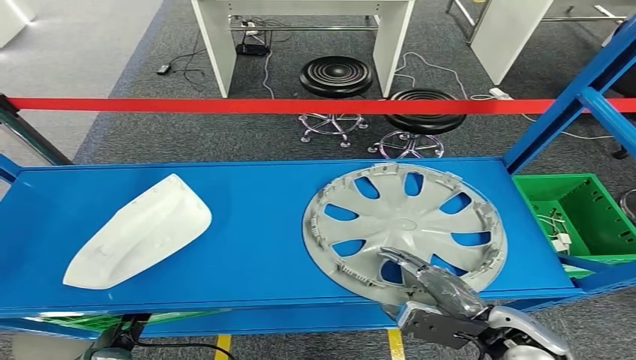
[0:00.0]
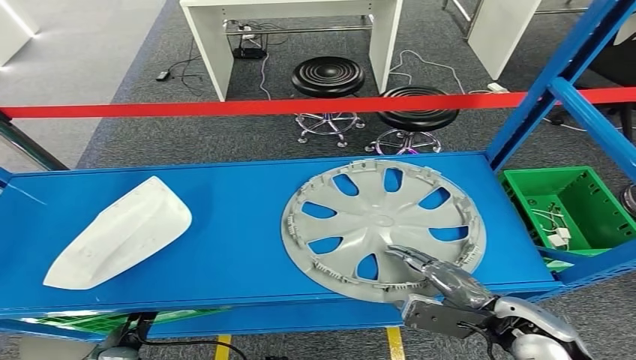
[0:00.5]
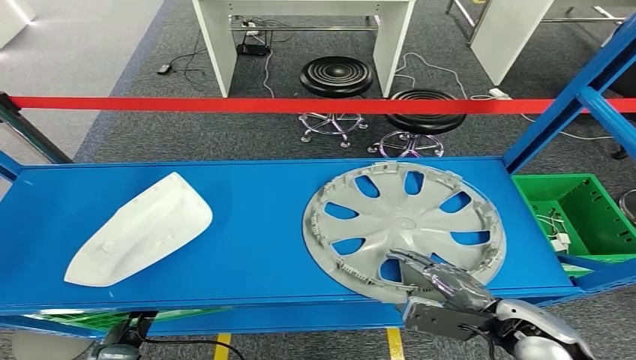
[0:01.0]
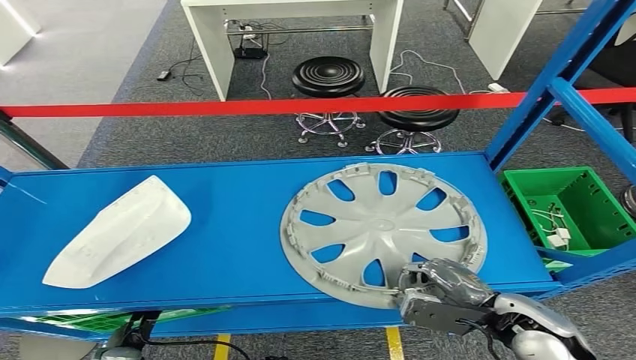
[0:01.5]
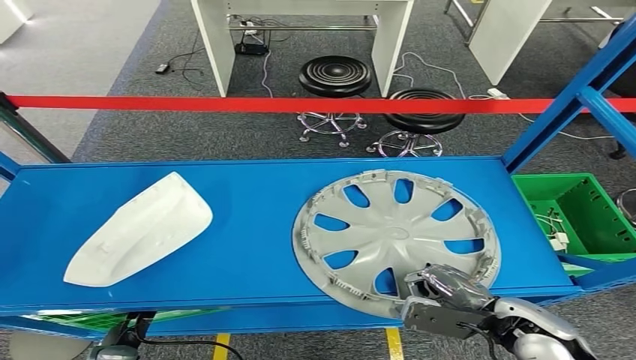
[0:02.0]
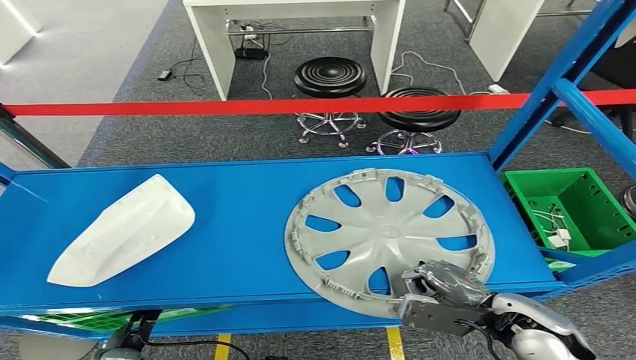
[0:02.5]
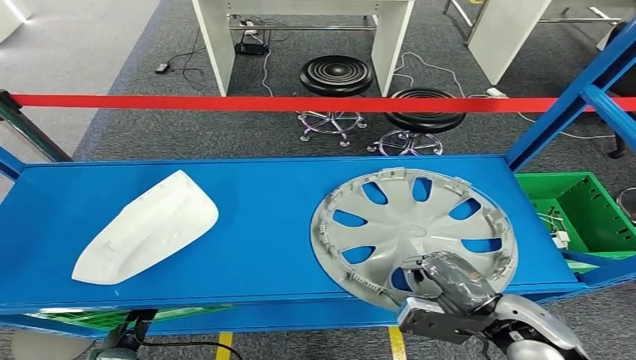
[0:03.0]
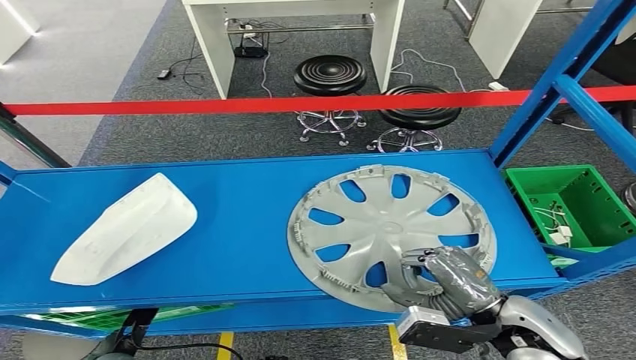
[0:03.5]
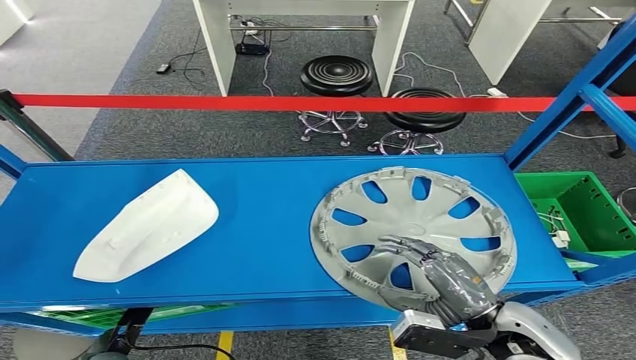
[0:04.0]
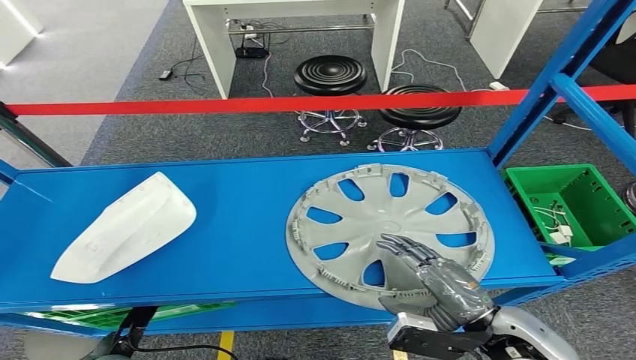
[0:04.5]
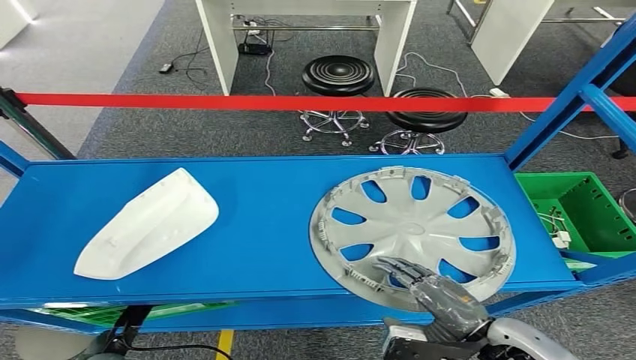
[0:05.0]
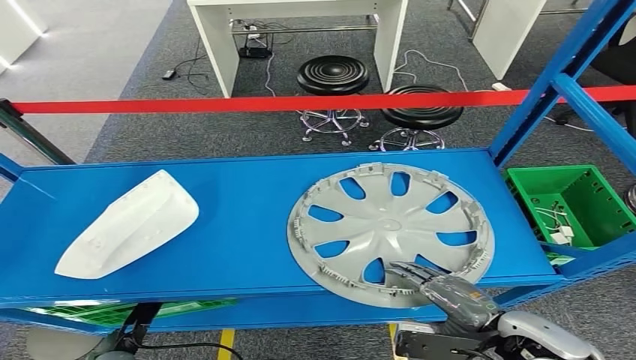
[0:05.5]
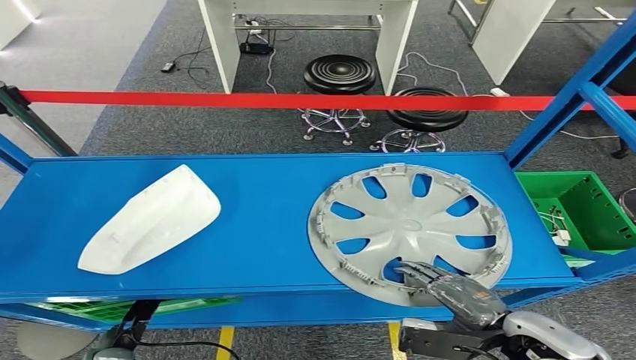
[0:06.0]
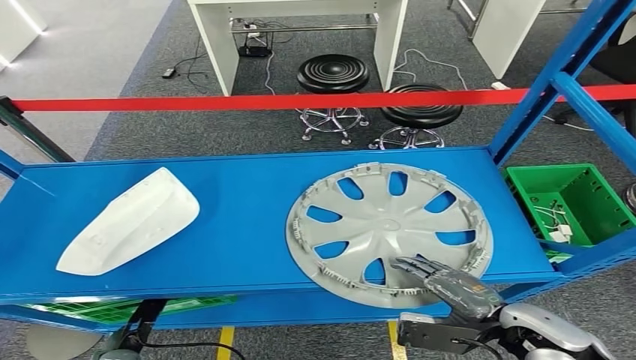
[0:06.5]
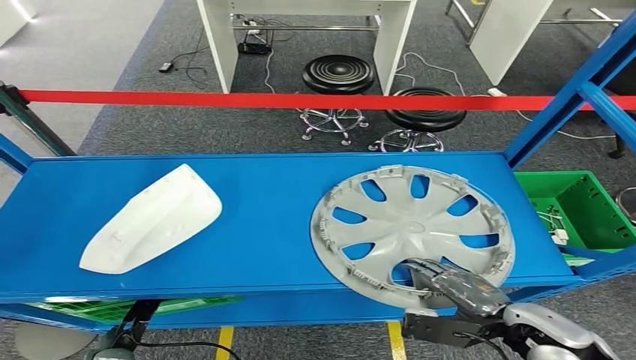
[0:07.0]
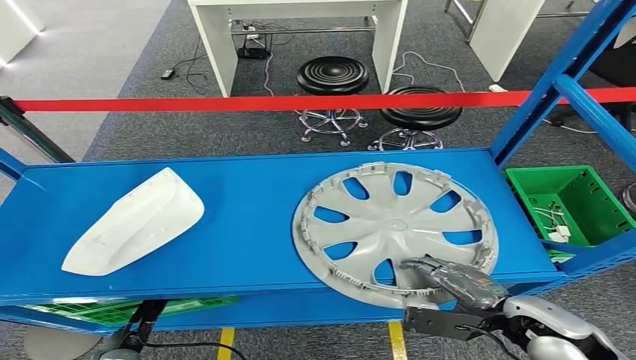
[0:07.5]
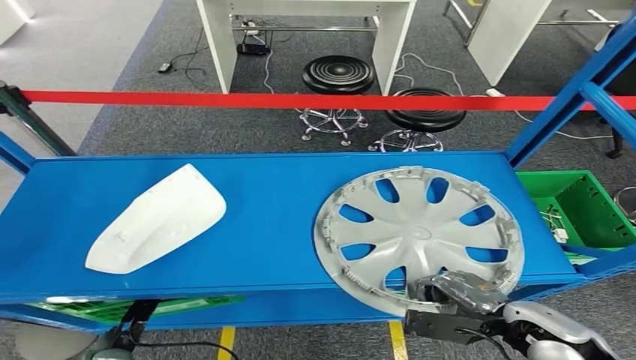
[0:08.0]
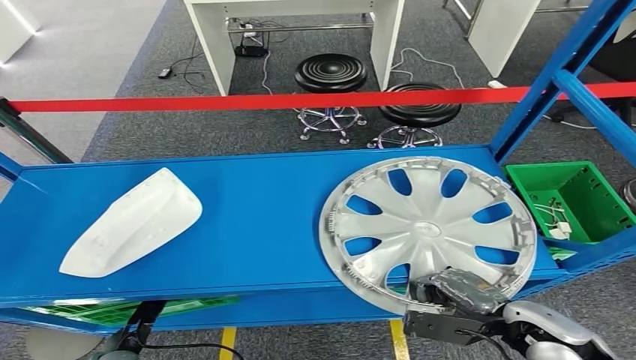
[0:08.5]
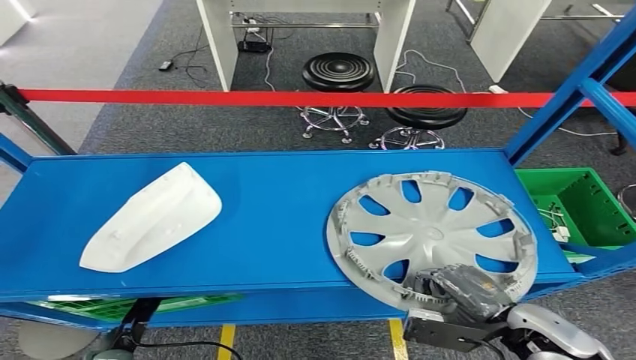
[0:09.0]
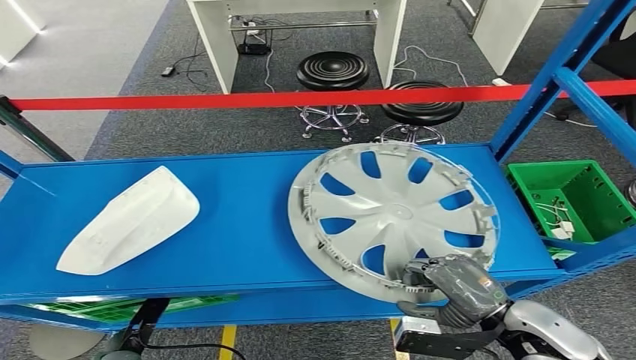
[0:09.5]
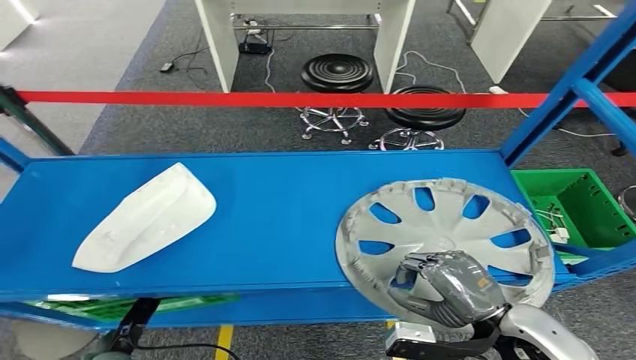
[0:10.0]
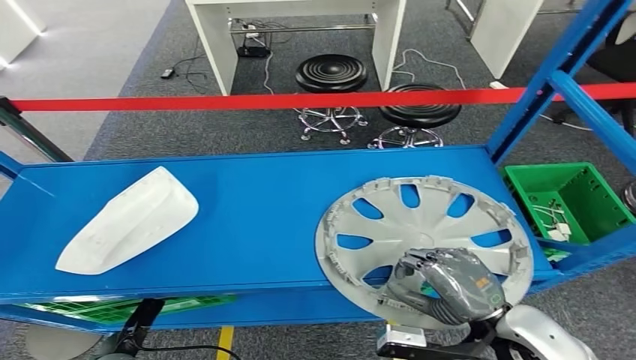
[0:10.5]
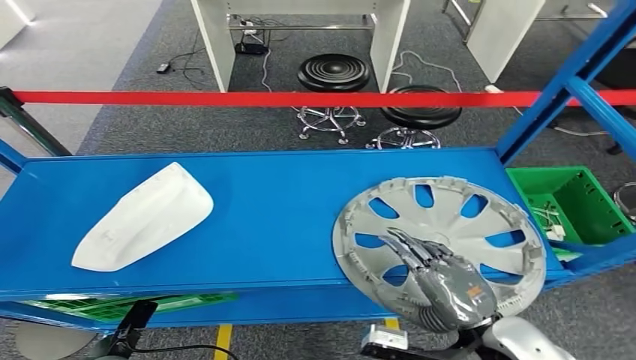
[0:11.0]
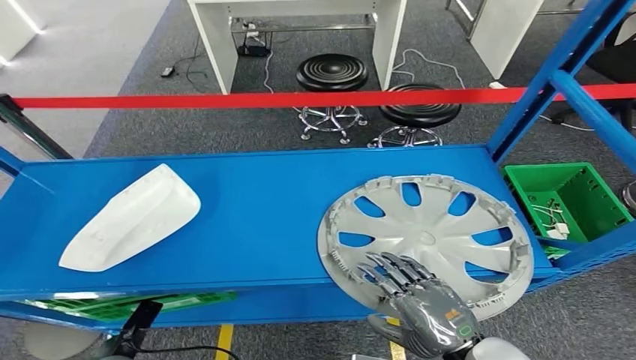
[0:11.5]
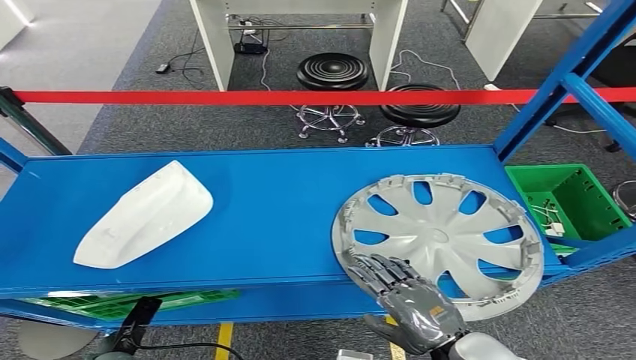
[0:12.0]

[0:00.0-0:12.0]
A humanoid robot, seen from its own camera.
0:00.0 to 0:02.0: The hands stay close to where they were, moving slightly.
0:02.0 to 0:04.0: The right hand moves approximately 5 cm.
0:06.0 to 0:08.0: The hands make only small movements.

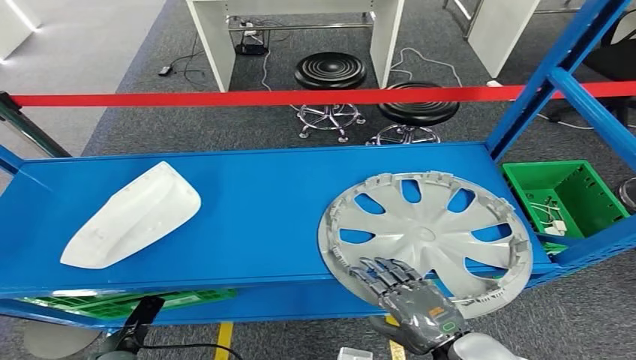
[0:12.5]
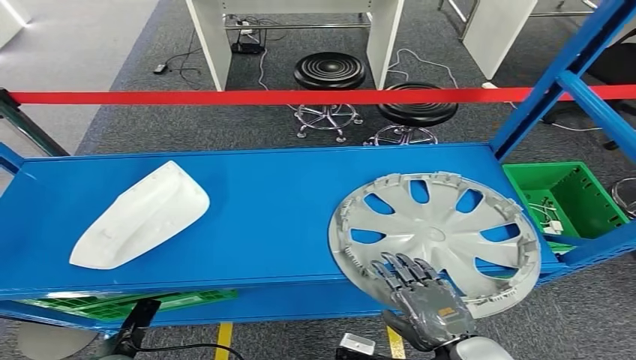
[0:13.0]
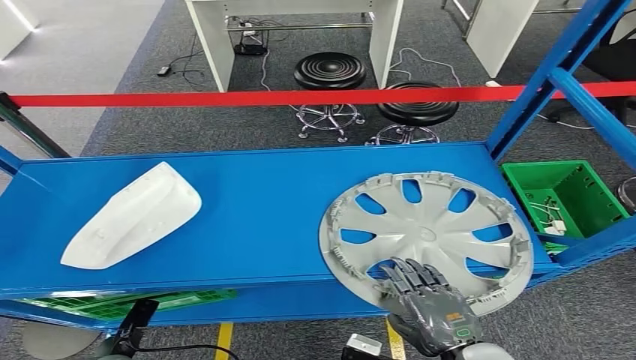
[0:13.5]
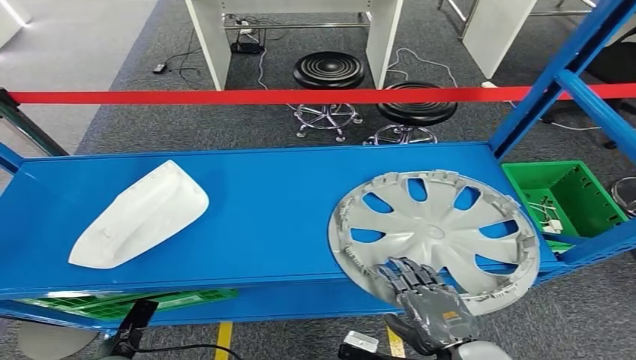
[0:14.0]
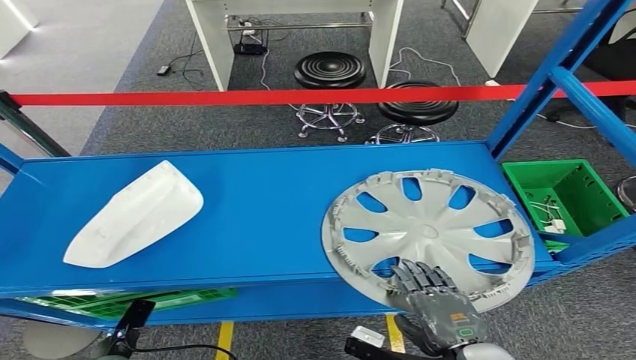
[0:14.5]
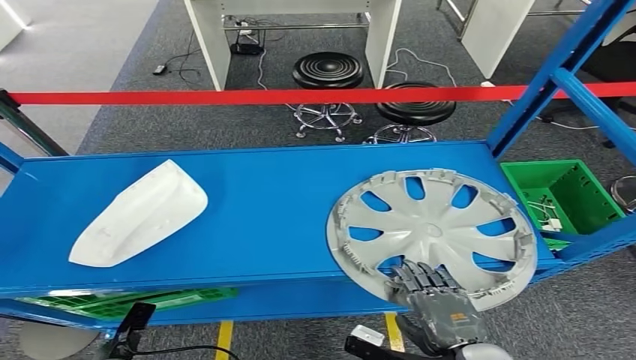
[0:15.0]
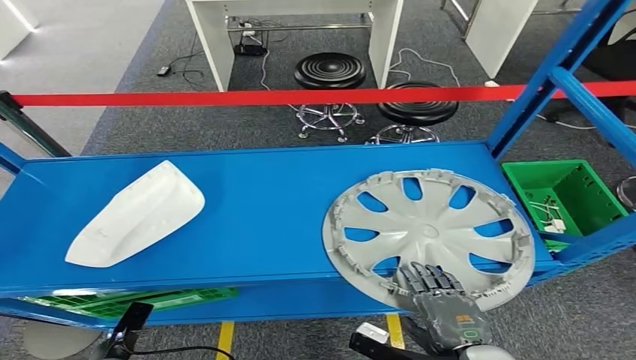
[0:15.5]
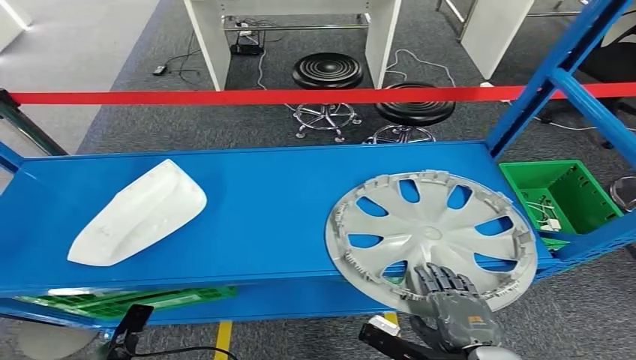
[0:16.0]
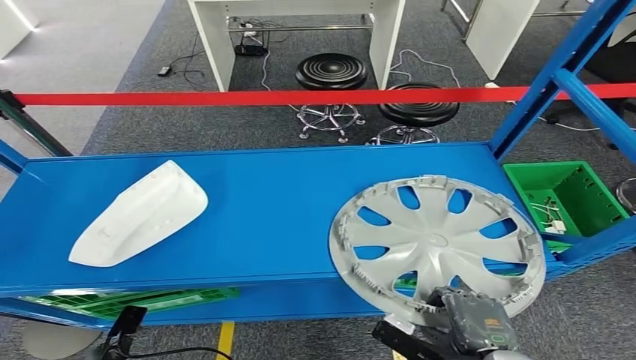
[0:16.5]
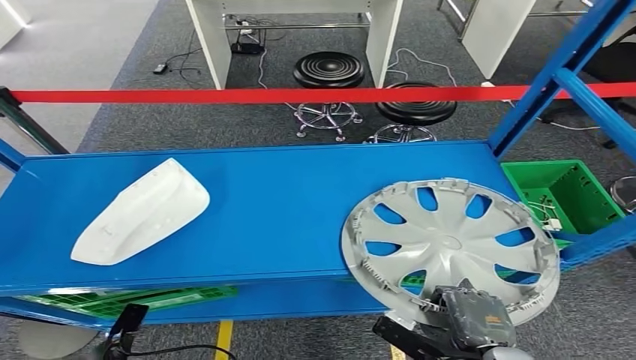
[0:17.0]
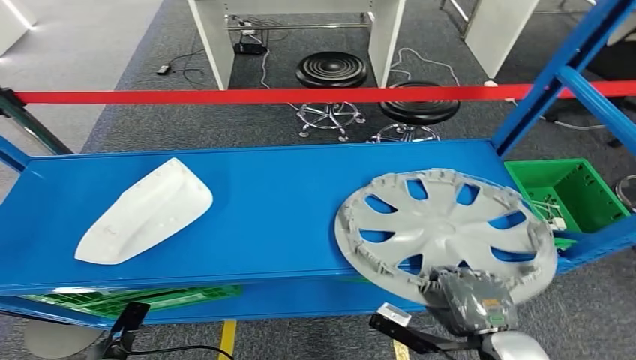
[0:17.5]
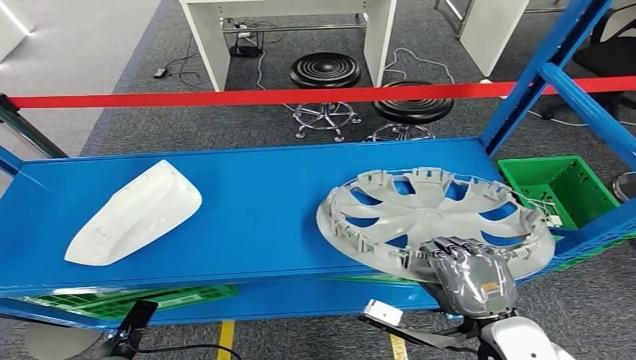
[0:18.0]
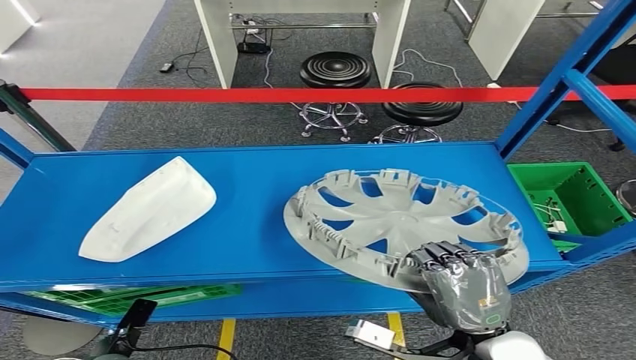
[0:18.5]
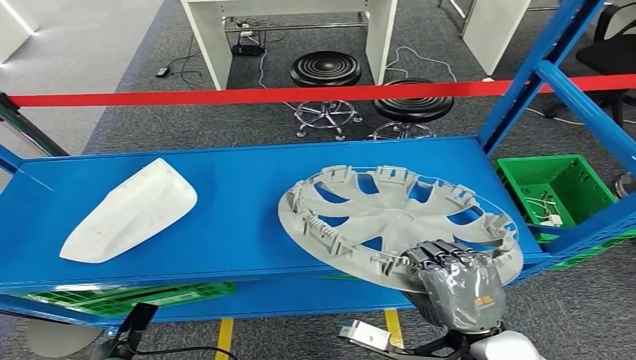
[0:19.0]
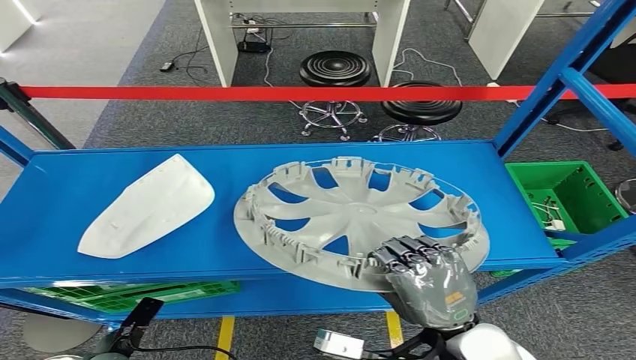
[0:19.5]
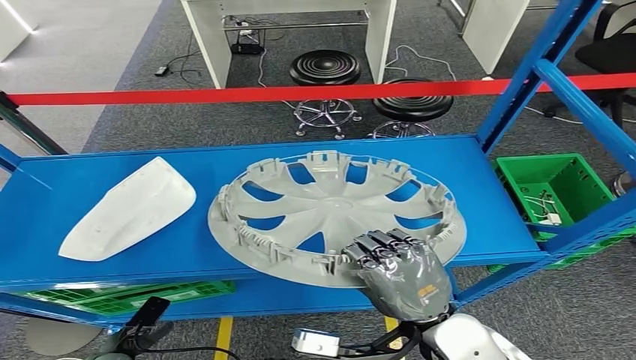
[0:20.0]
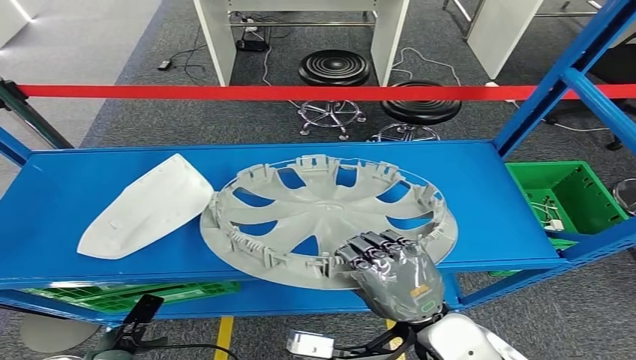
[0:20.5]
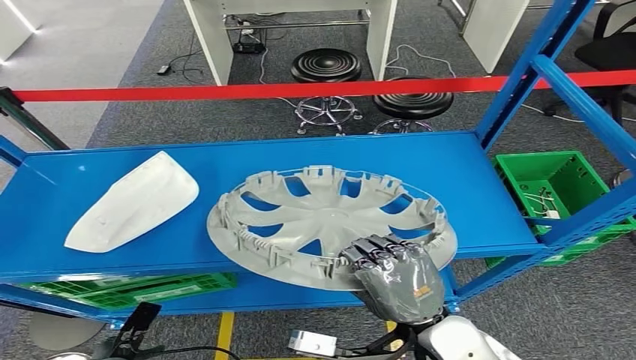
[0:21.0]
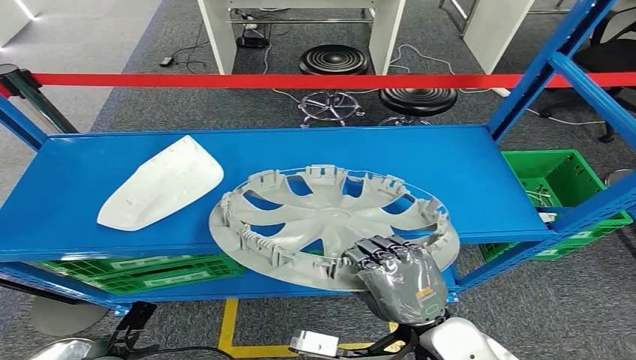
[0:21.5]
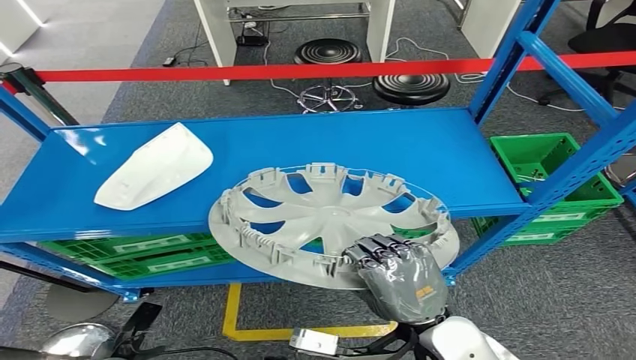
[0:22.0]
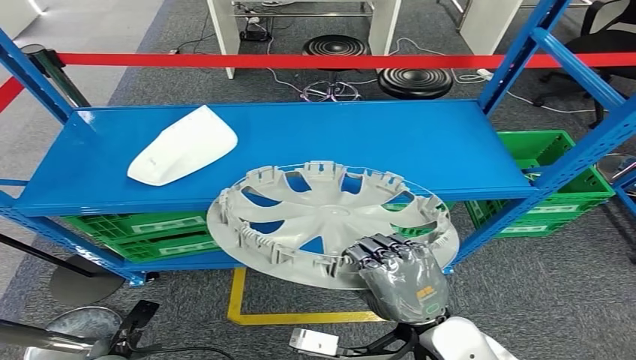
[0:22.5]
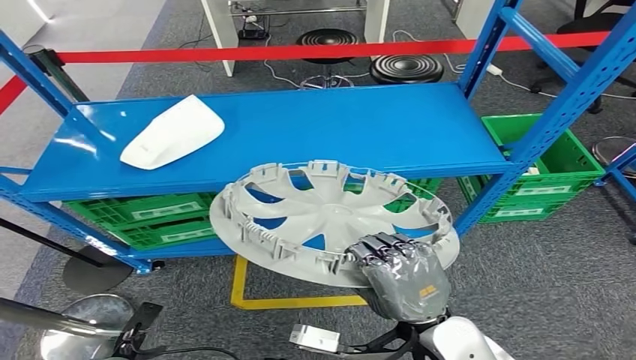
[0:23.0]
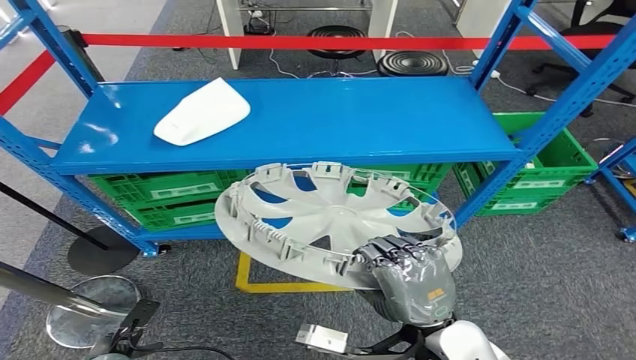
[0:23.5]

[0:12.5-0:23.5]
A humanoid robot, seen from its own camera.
Step, 0:12.5 to 0:18.5: Pick up the small component from the shelf.
0:12.5 to 0:14.5: There are only small adjustments of the hands.
0:14.5 to 0:16.0: The hands move only a little.
